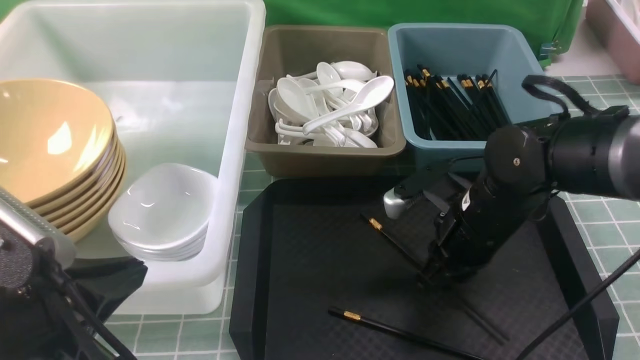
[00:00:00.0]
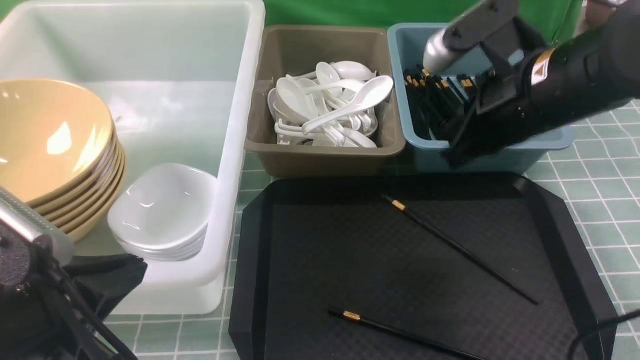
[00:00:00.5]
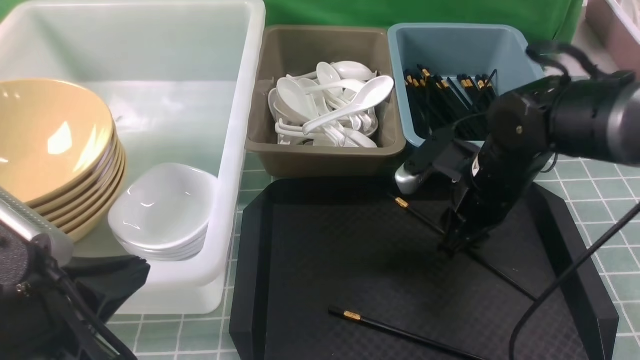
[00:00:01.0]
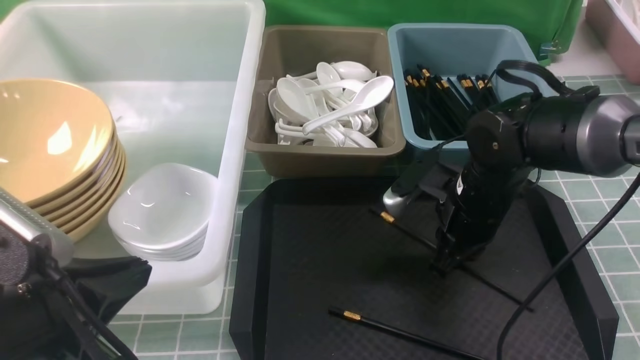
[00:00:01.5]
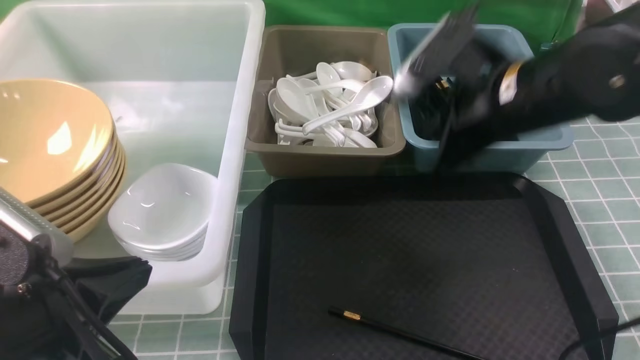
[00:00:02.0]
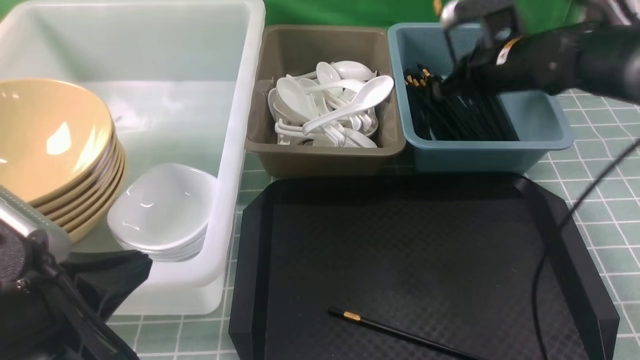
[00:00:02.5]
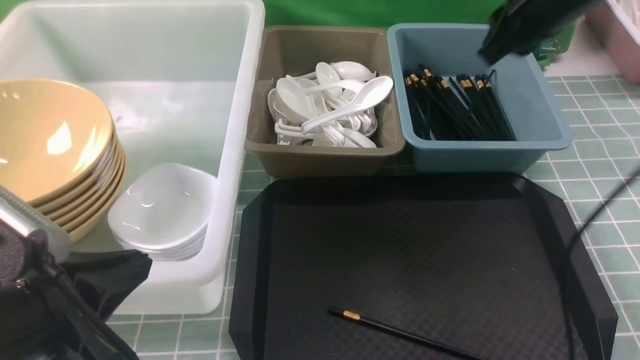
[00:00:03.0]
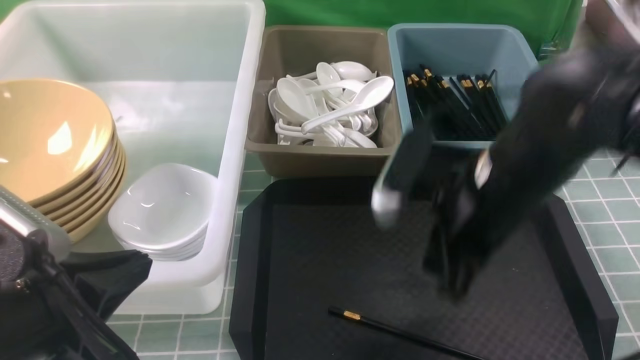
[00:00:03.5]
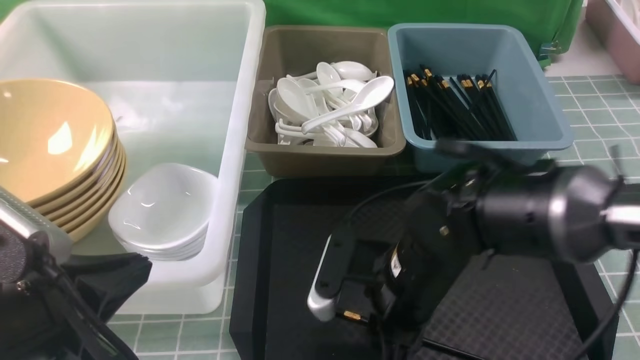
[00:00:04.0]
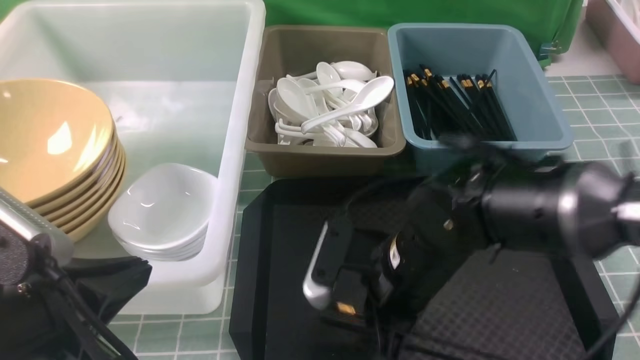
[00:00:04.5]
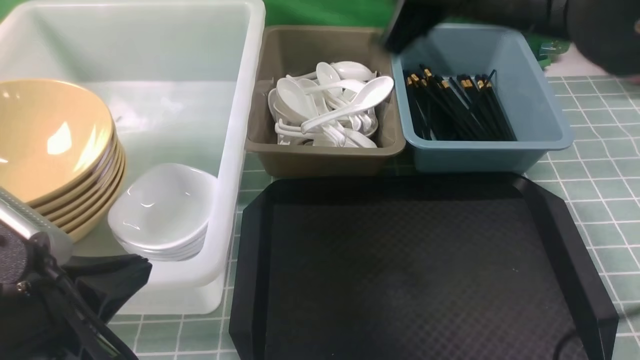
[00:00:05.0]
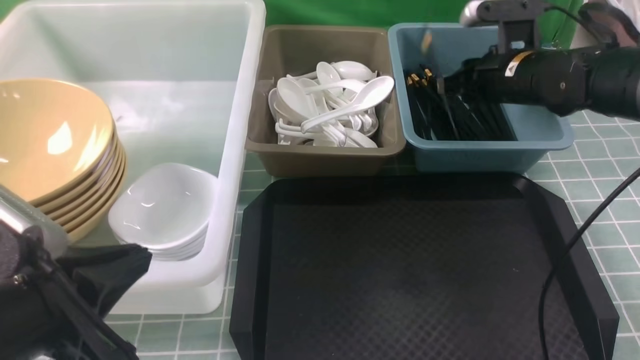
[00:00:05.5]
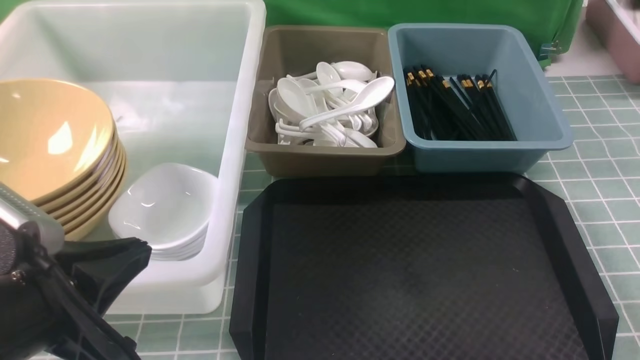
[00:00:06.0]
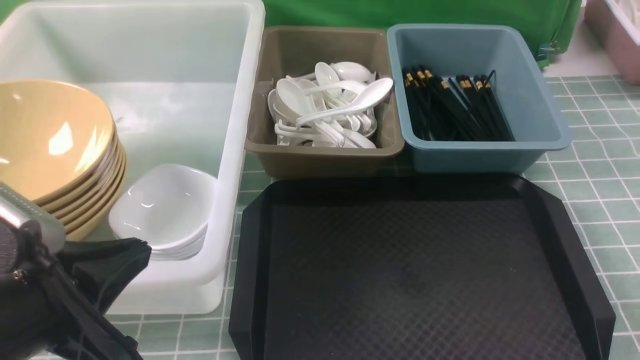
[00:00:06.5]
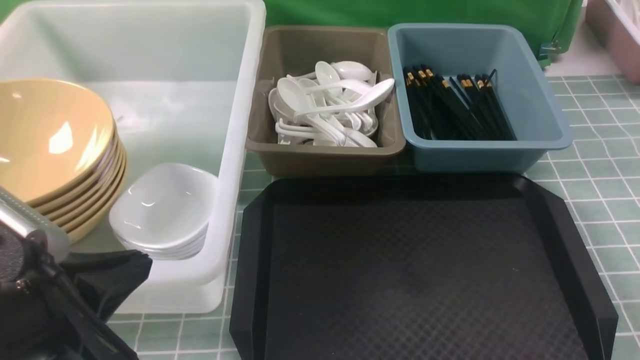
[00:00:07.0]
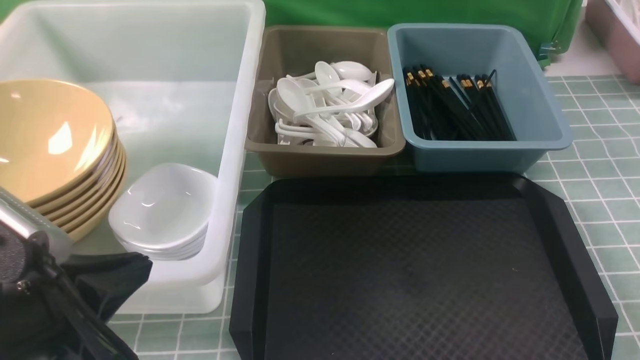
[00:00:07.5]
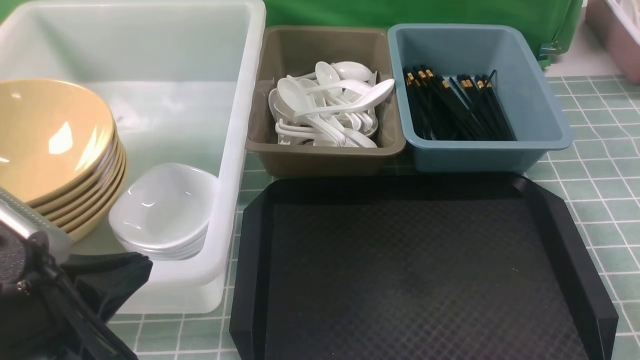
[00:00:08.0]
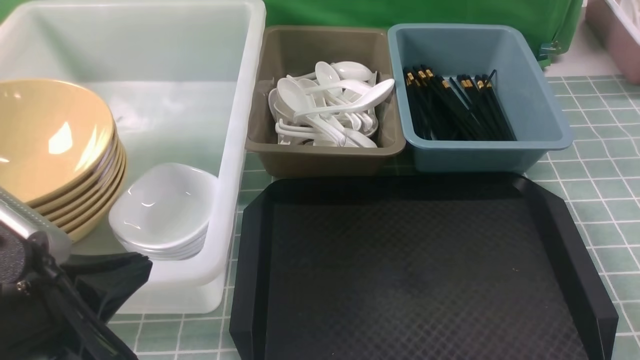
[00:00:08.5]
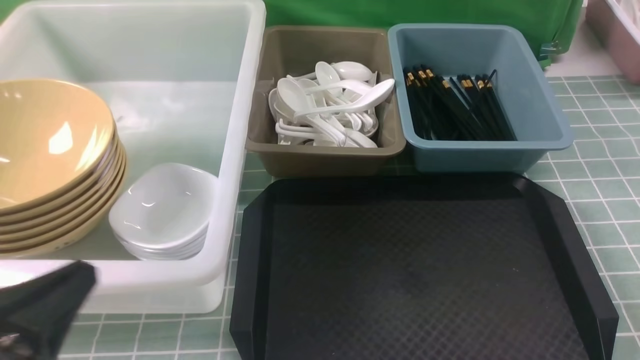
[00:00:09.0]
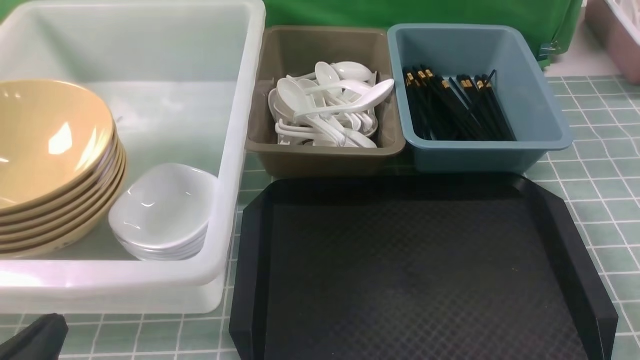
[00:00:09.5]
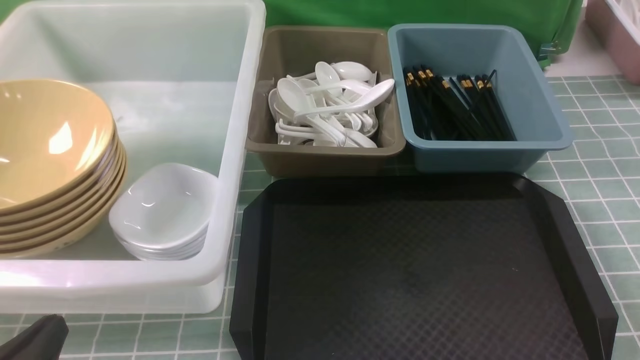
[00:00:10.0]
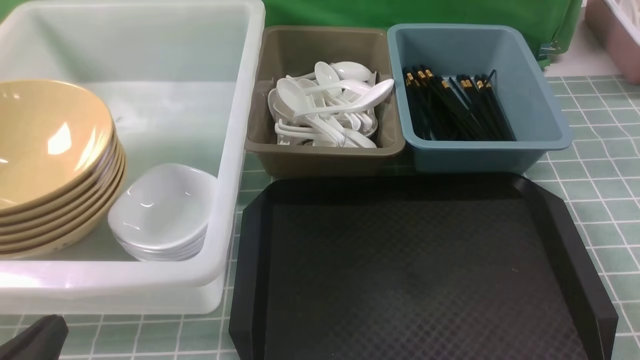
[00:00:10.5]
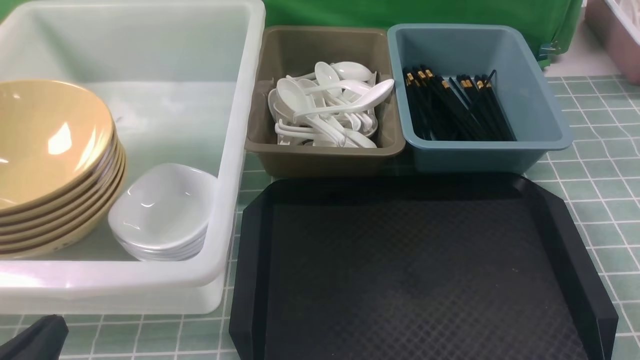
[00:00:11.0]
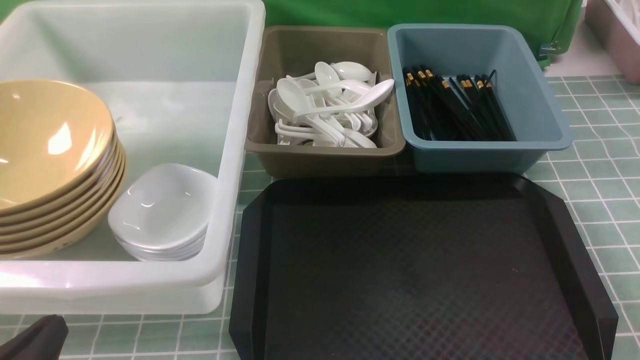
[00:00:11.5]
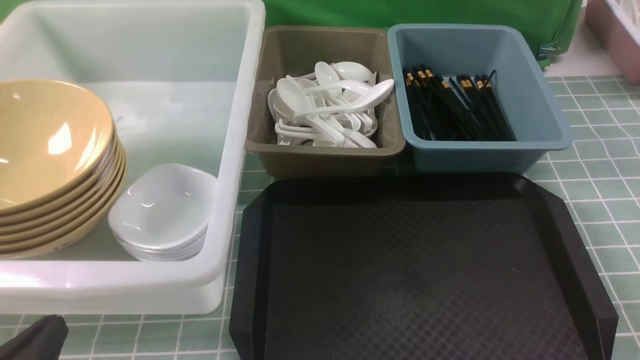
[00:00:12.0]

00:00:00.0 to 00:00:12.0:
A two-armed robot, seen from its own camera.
Task of the whole recording: on blue table put chopsticks spoon bowls plates into blue grey white boxes.
Step, 00:00:02.0 to 00:00:02.5: use the right arm to put a chopstick into the small storage box on the right.
Step, 00:00:03.0 to 00:00:04.5: use the right arm to grab a chopstick.
Step, 00:00:05.0 to 00:00:05.5: use the right arm to put a chopstick into the small storage box on the right.
00:00:00.0 to 00:00:02.0: The right gripper swings up and down, some 10 cm each way, with 2 reversals, and opens, then closes once more.
00:00:02.0 to 00:00:04.0: The right gripper moves downward, backward and to the left, approximately 15 cm, and opens.
00:00:04.0 to 00:00:06.0: The right gripper swings up and down, some 25 cm each way, with 2 reversals, and closes its fingers.
00:00:08.0 to 00:00:10.0: The left gripper travels downward by some 10 cm.
00:00:10.0 to 00:00:12.0: The two grippers keep their place.
